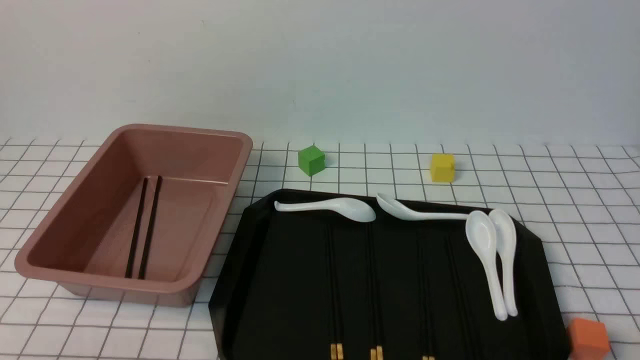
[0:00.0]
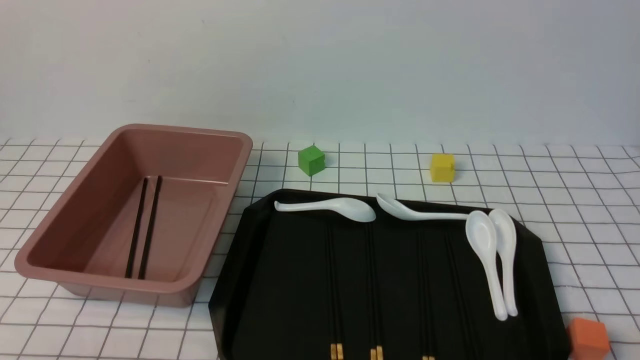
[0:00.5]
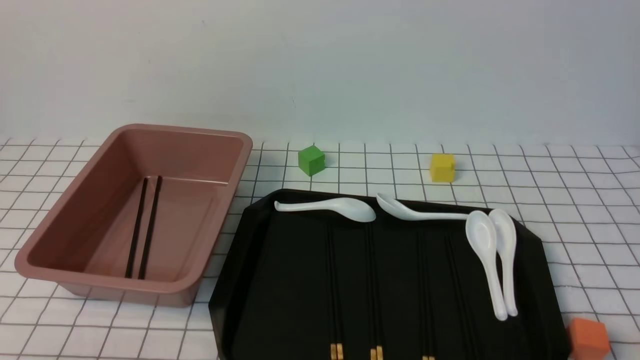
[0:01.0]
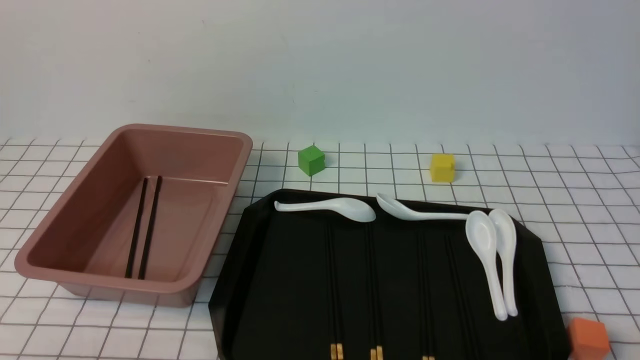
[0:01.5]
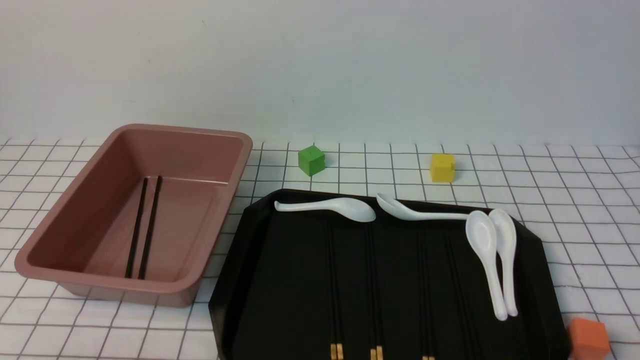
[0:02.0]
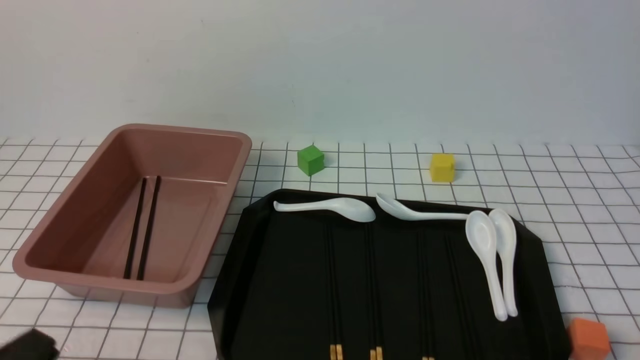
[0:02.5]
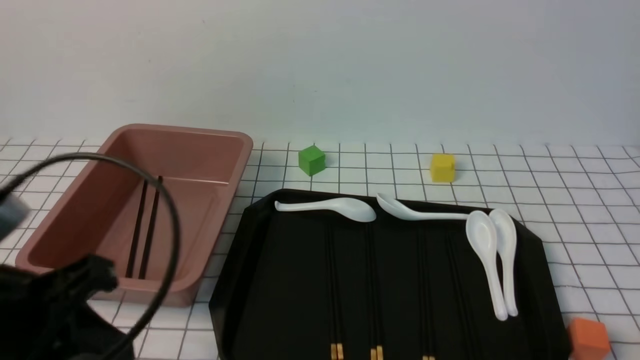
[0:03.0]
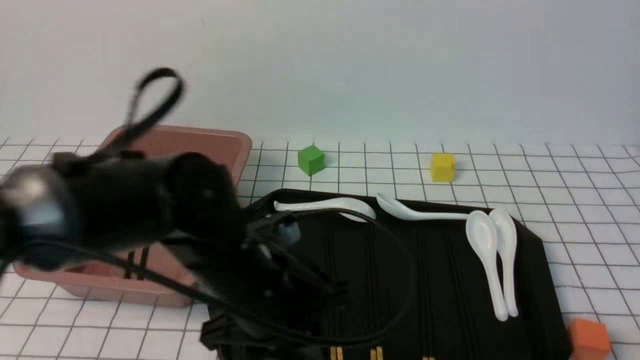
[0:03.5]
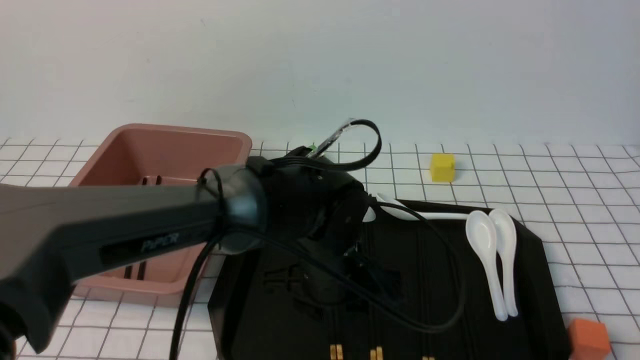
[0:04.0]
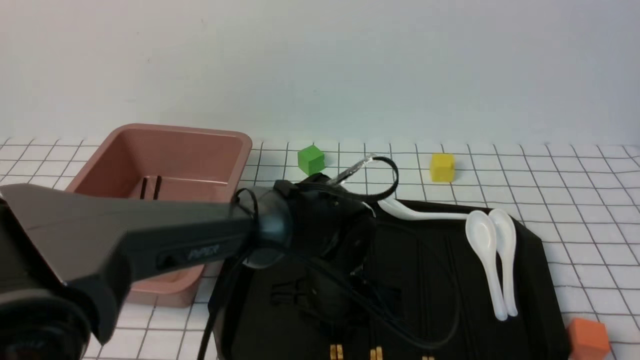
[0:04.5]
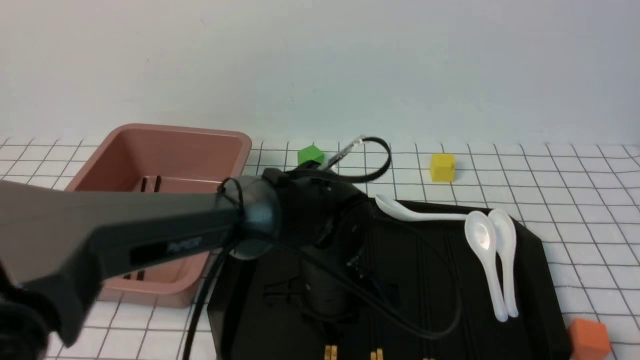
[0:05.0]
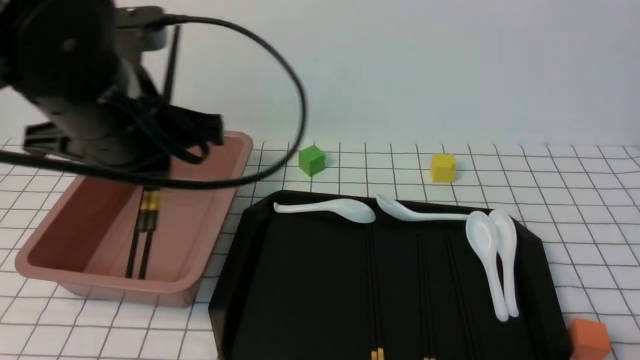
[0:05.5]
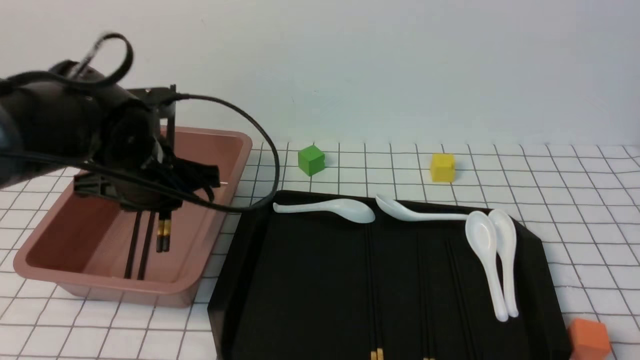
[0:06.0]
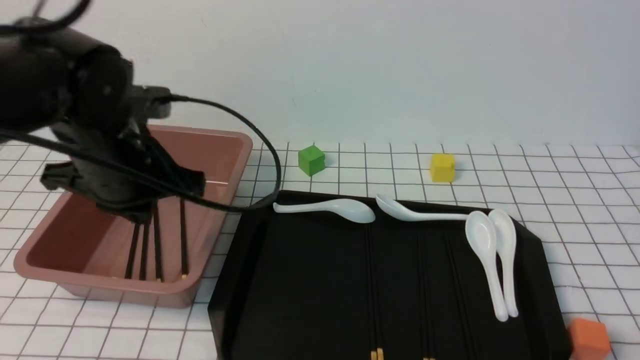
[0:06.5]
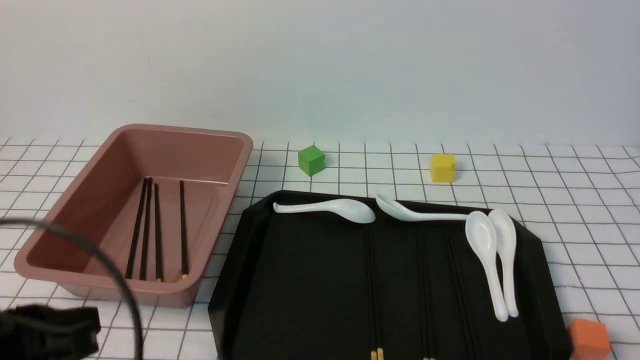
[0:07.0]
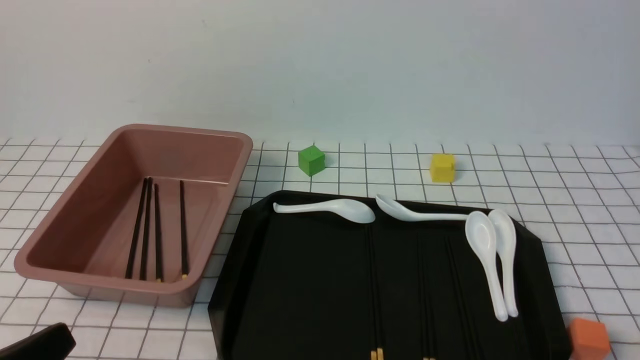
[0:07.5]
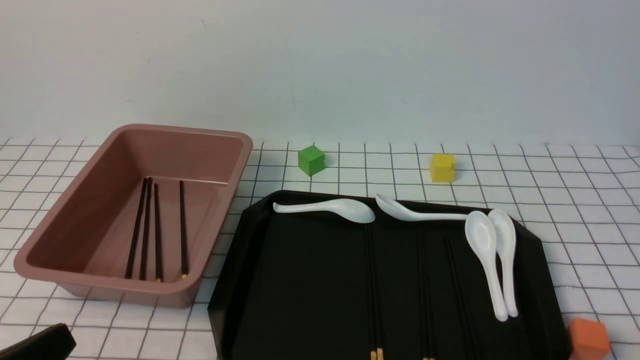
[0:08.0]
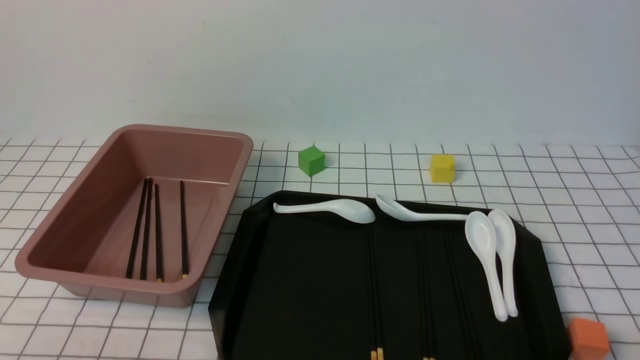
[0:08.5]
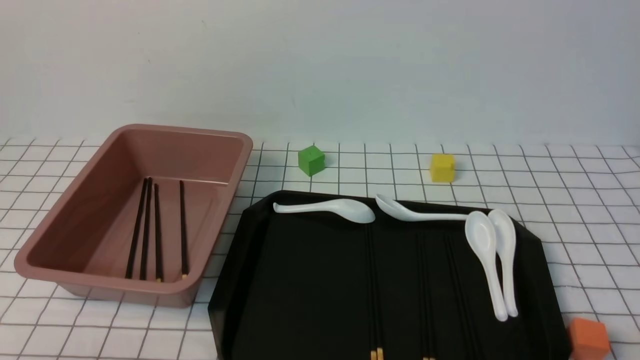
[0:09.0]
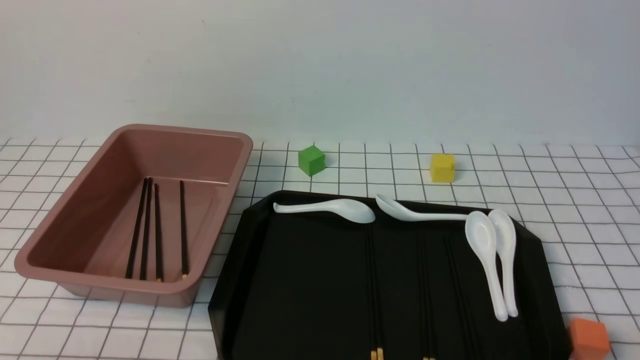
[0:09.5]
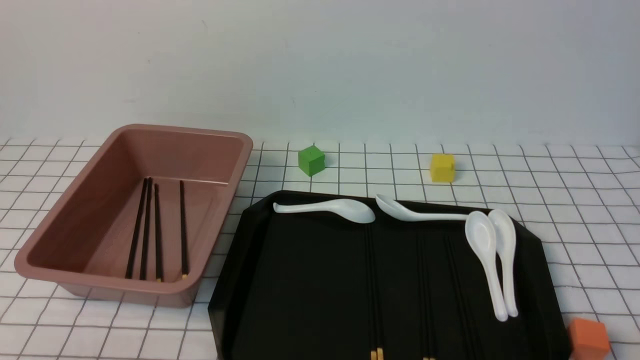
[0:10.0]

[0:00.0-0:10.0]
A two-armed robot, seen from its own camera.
Step, 0:00.0 to 0:05.0: use the left arm to grab a pair of chopsticks.
Step, 0:05.5 to 0:06.5: use the left arm to put the chopsticks into the lunch box.
0:02.0 to 0:04.0: The left gripper shifts some 35 cm to the right and forward, and opens up.
0:04.0 to 0:06.0: The left gripper shifts some 20 cm to the left, and closes its fingers.
0:06.0 to 0:08.0: The left gripper travels backward by some 25 cm, and closes up.
0:08.0 to 0:10.0: The left gripper heads downward, covering approximately 5 cm.
